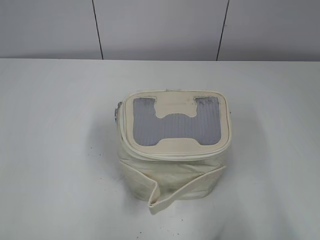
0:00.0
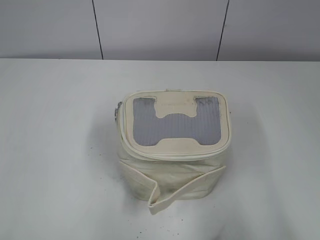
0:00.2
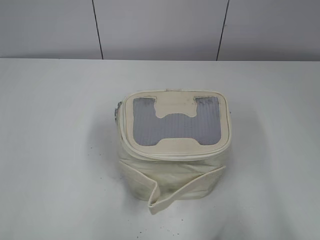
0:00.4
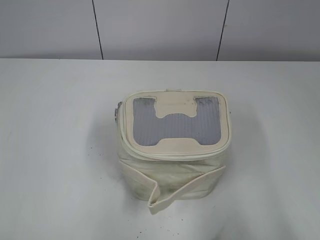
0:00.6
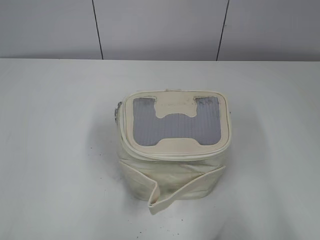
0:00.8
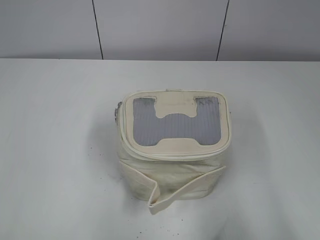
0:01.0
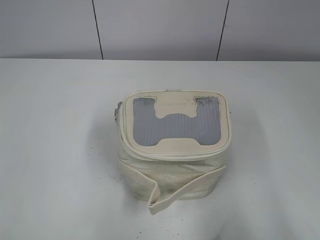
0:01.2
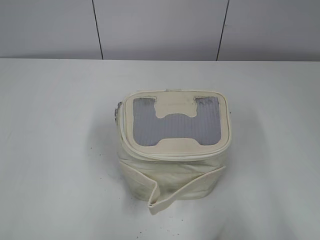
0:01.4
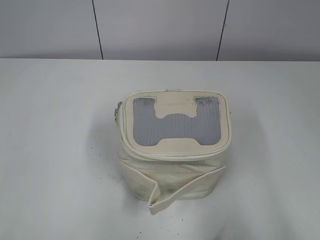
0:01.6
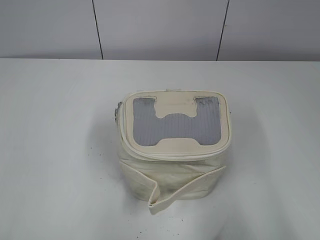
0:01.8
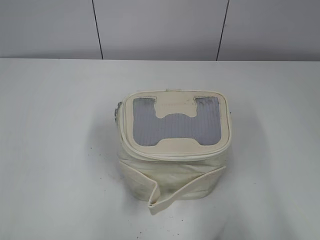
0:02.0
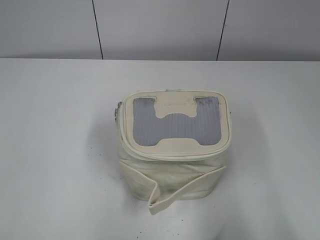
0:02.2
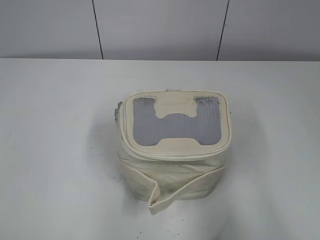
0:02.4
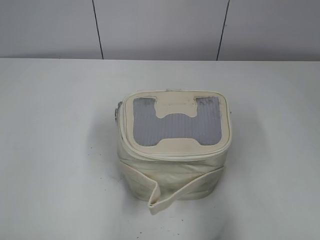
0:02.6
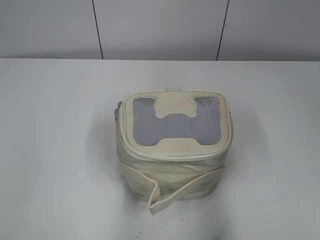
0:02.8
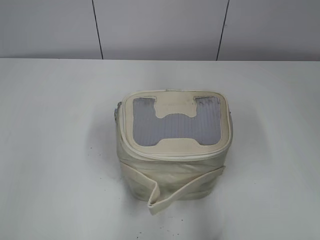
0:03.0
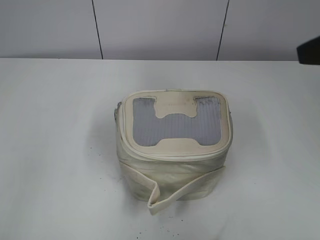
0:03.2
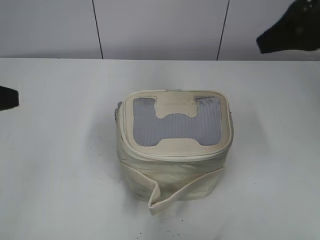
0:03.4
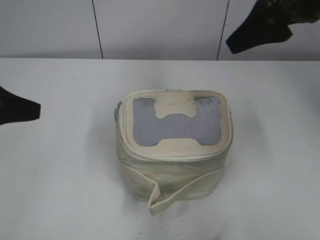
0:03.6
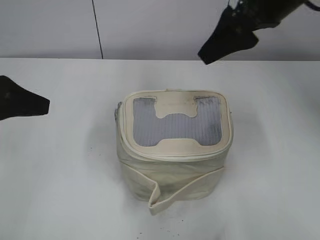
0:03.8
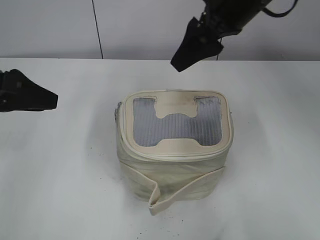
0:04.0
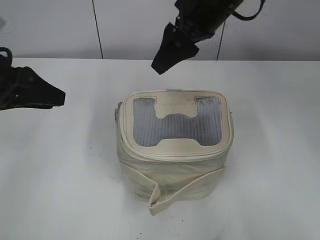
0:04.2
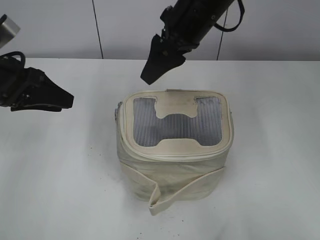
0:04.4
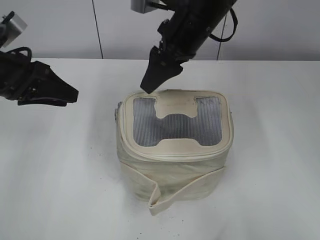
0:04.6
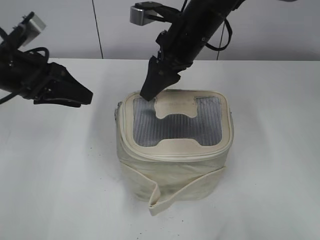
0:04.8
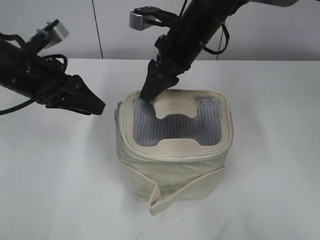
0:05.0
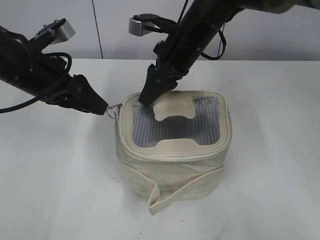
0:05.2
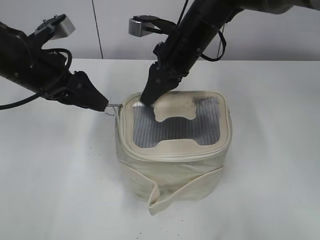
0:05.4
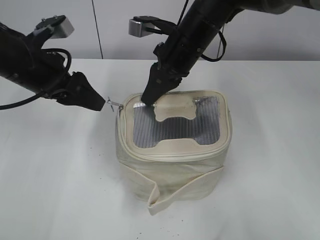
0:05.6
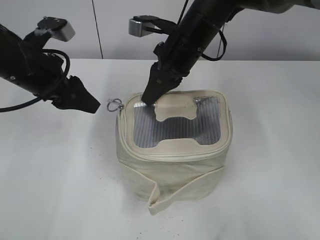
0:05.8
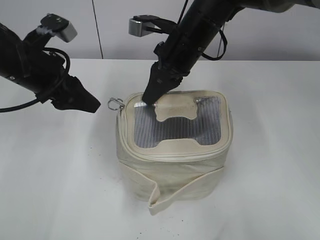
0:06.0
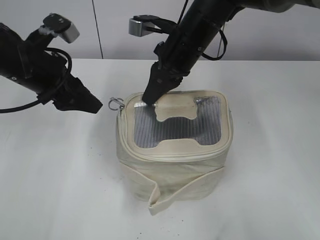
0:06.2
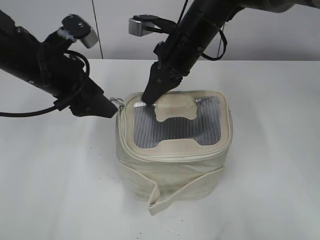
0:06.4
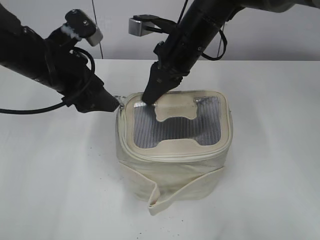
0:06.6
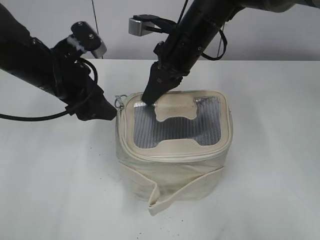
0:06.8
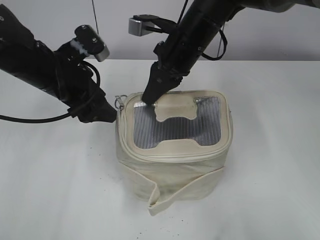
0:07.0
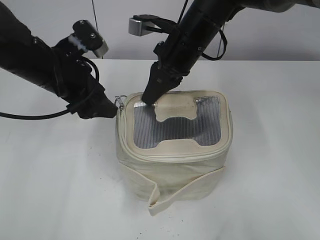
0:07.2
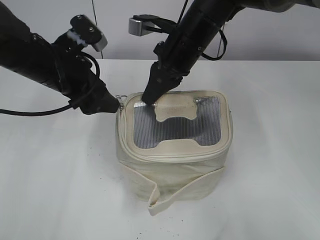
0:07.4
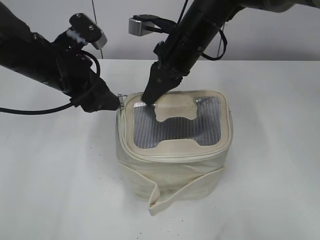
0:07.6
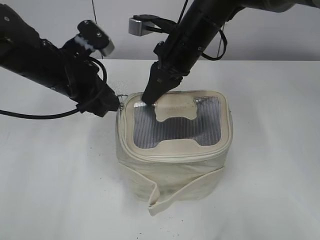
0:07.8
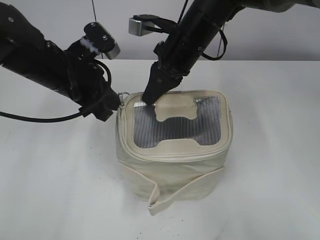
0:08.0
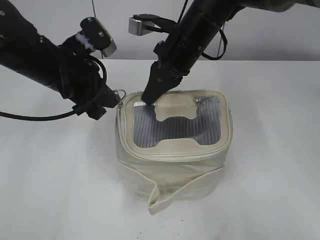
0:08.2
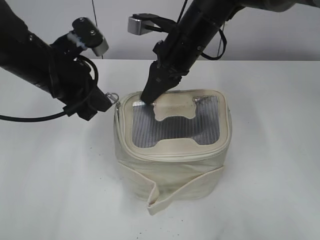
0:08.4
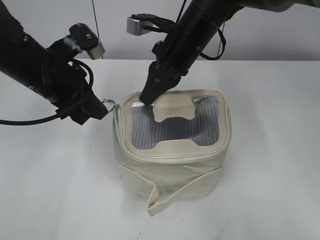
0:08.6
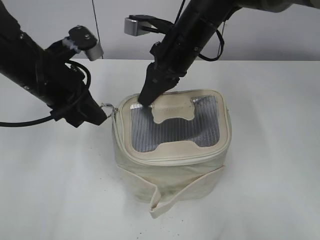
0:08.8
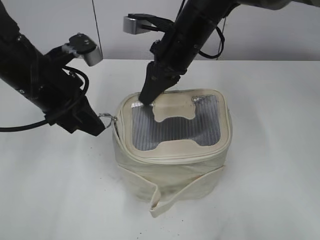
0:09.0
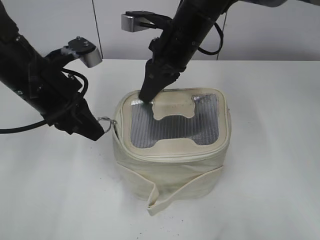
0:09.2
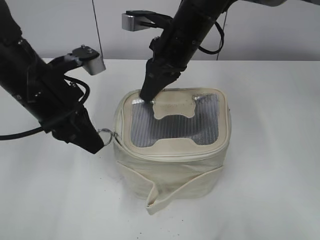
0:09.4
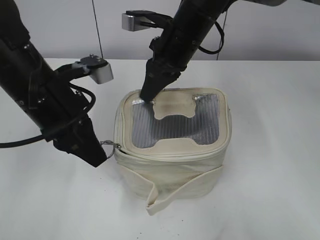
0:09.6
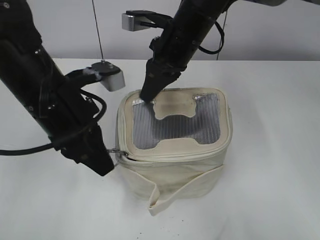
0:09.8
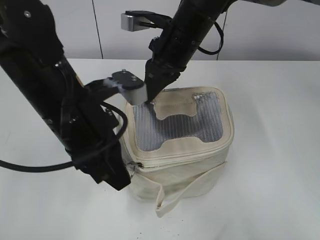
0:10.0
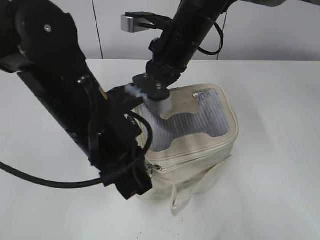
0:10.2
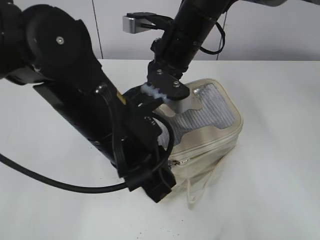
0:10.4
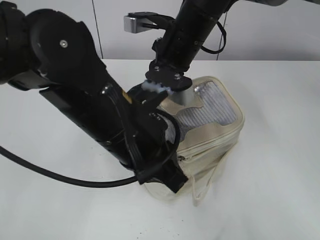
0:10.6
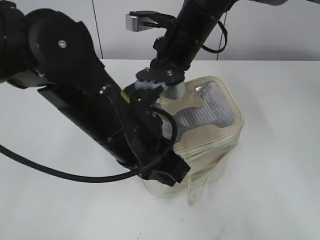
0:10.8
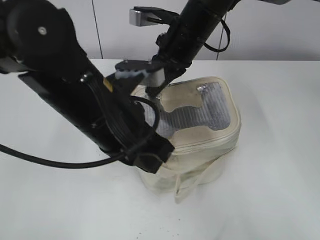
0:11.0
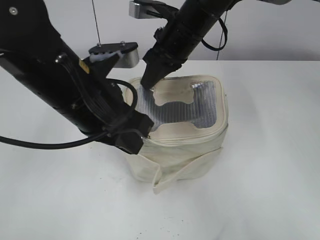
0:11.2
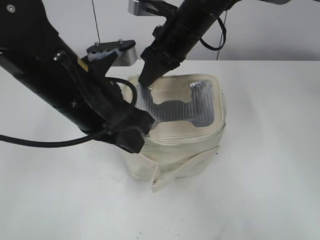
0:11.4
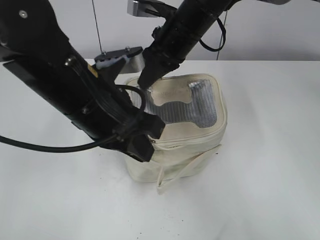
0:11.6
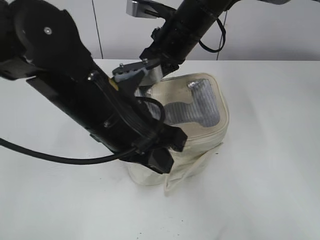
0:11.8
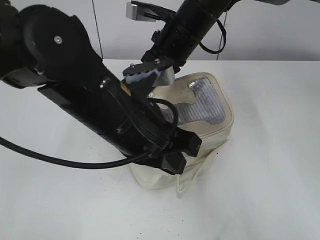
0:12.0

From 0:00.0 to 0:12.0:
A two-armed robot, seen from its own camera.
From 0:01.6 to 0:03.0: The two grippers go some 15 cm forward.
From 0:03.0 to 0:04.4: The right gripper is displaced forward and to the left by about 30 cm, while the left gripper shifts about 20 cm forward and downward.
From 0:04.4 to 0:06.0: The right gripper travels downward by about 5 cm, and closes its fingers; the left gripper shifts by some 5 cm.
From 0:06.0 to 0:07.6: The grippers move only a little.
From 0:07.6 to 0:09.0: The left gripper closes.
From 0:09.0 to 0:10.4: The left gripper travels to the right and backward by about 15 cm.

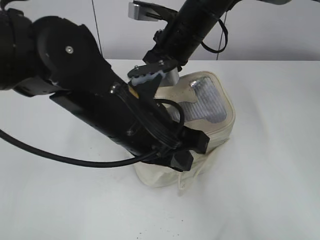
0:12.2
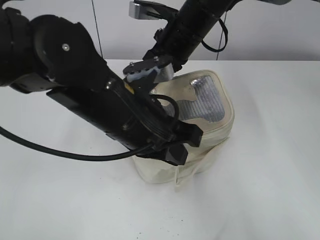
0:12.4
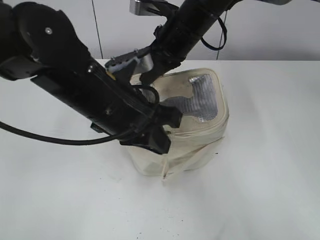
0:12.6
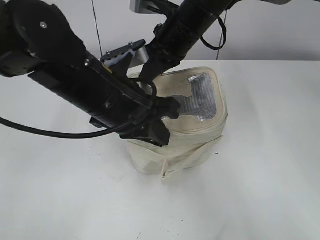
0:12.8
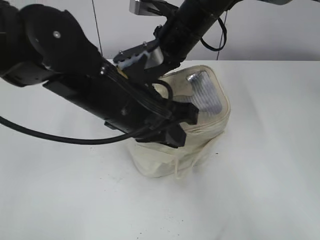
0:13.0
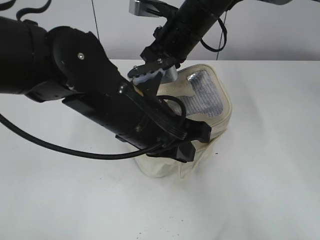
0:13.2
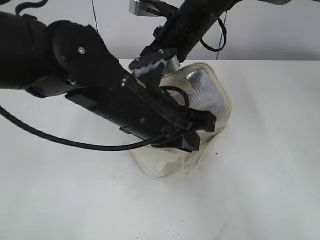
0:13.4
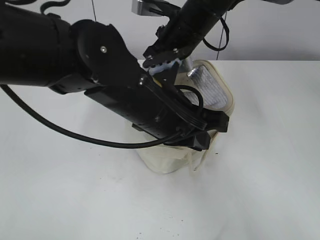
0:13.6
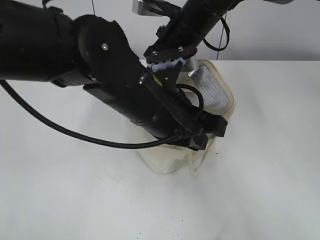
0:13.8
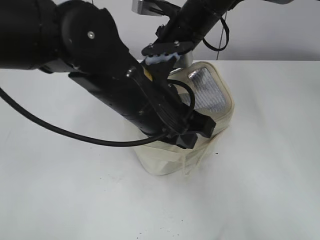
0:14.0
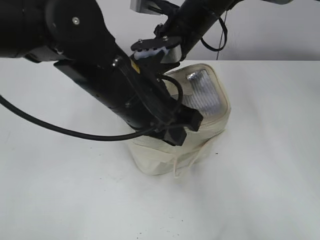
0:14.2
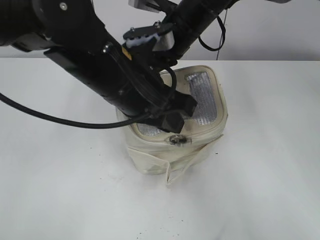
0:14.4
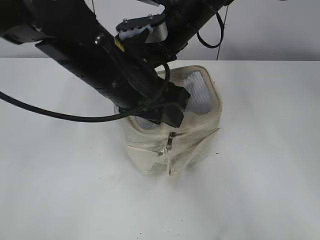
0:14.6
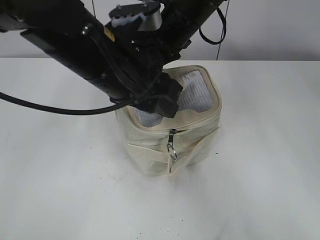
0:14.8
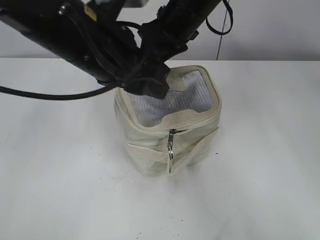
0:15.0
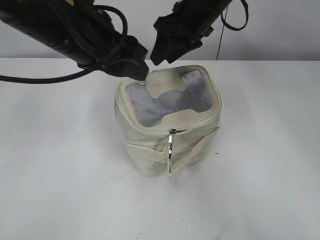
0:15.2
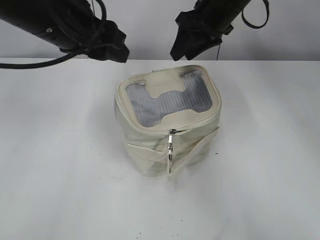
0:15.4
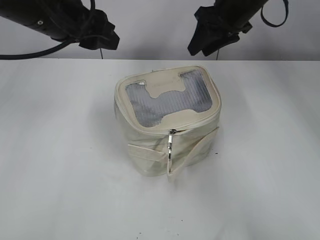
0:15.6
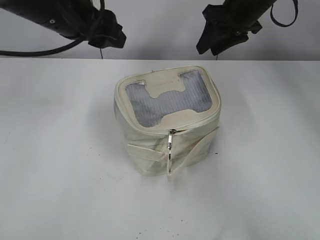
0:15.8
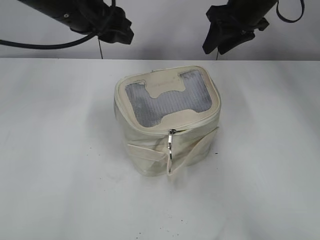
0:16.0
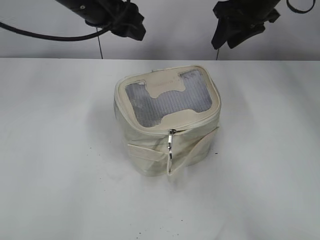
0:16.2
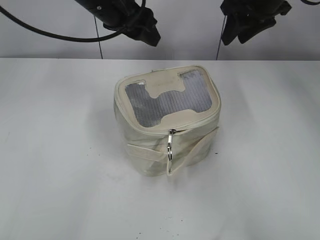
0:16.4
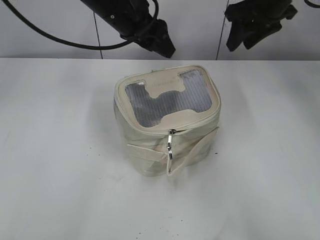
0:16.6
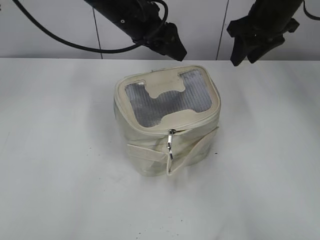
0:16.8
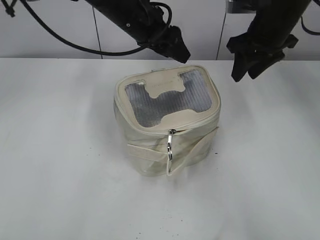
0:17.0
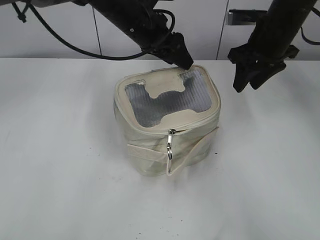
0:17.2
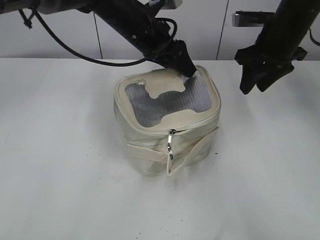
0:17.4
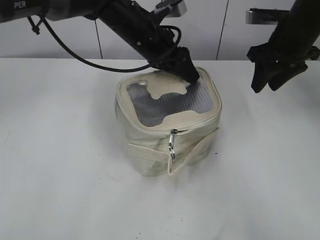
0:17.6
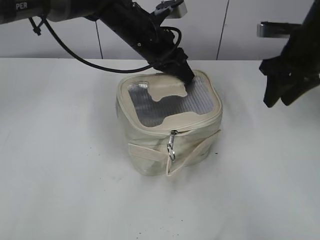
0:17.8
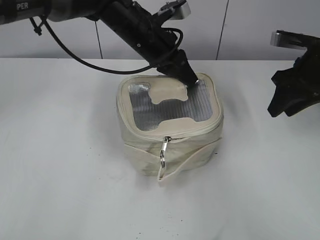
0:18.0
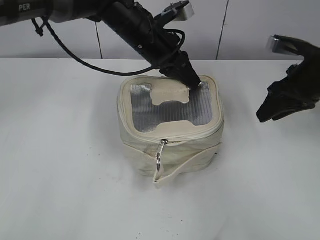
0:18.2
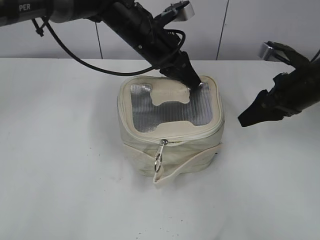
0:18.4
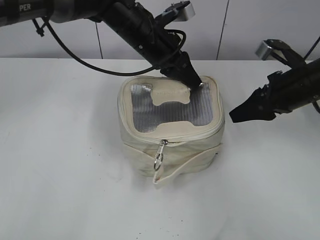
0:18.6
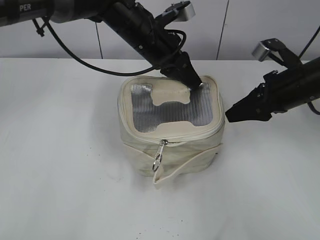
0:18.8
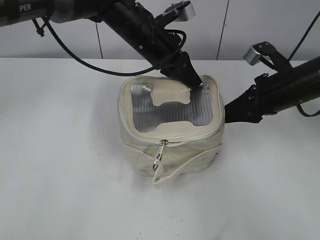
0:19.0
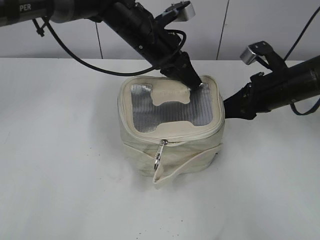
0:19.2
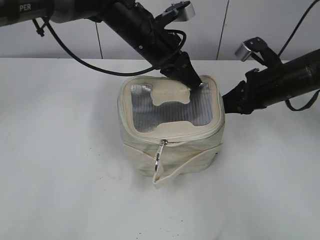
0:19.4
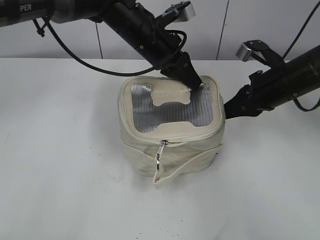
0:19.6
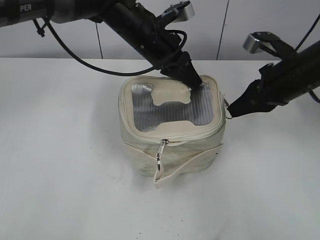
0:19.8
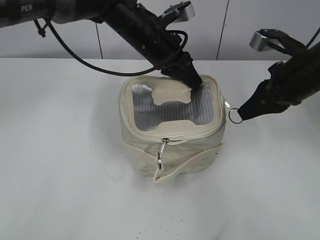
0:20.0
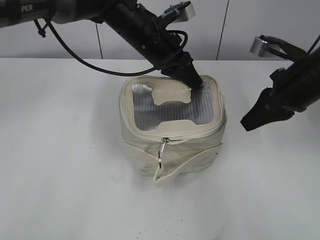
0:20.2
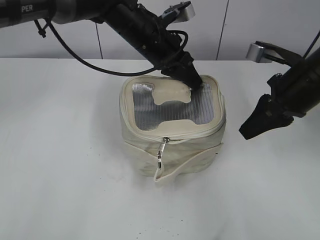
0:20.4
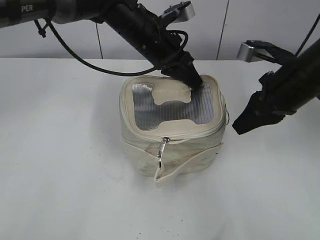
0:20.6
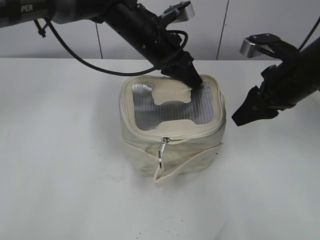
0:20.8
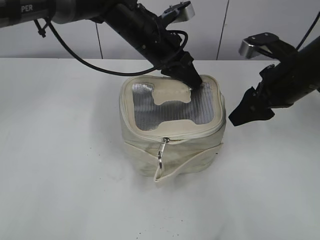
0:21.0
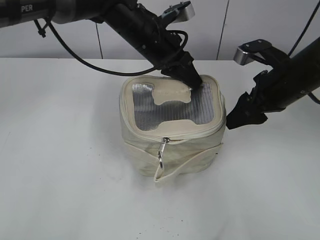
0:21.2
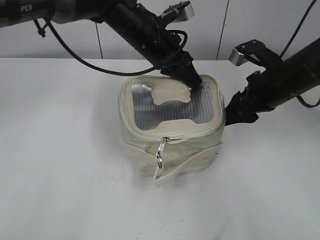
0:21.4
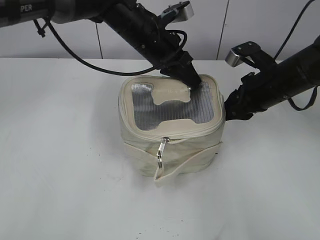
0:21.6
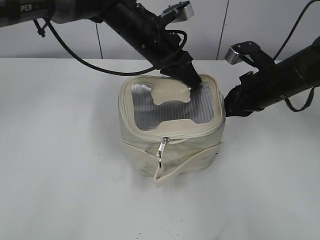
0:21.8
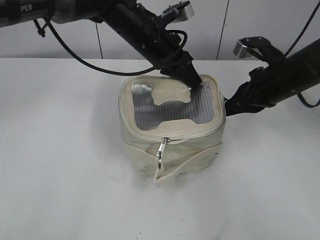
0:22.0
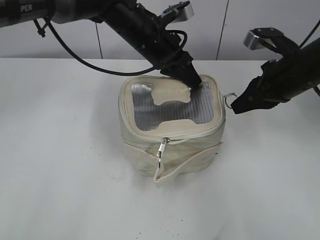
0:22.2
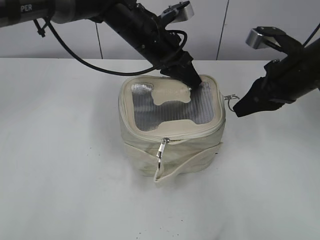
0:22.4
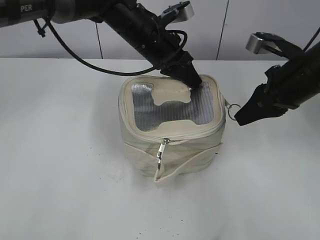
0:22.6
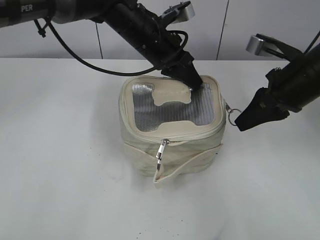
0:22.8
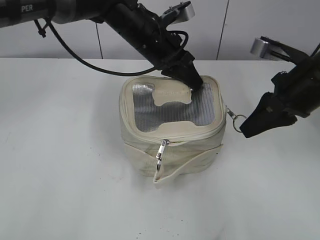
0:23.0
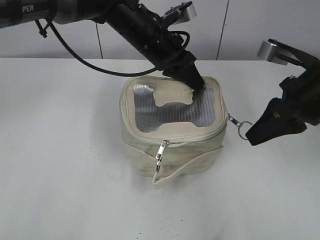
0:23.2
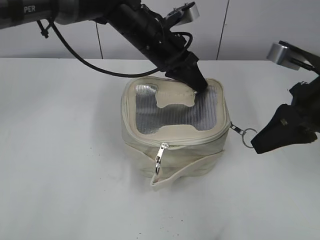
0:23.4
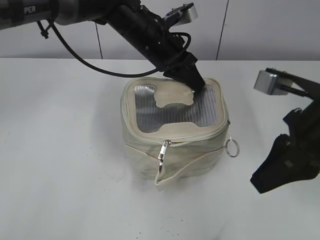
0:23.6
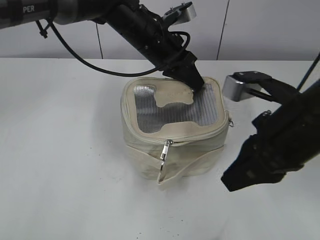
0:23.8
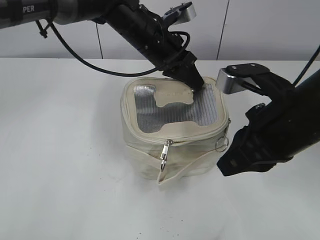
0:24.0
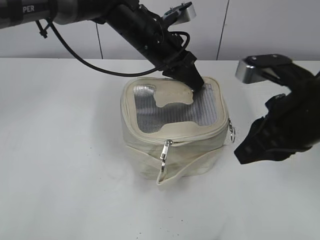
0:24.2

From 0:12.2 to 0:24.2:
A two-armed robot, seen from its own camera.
Step, from 0:12.2 to 0:14.4: Zip up the bag with your left hand.
Step, from 0:14.6 to 0:15.2: Hold the bag with your right hand.
From 0:13.8 to 0:15.2: The left gripper shifts approximately 10 cm to the left and upward, and opens; the right gripper opens up.
From 0:15.2 to 0:16.6: The right gripper moves to the right, about 10 cm. The left gripper is displaced forward by roughly 15 cm.
From 0:16.6 to 0:18.2: The right gripper goes approximately 15 cm backward, downward and to the right. Meanwhile the left gripper moves downward, about 5 cm, and closes up.
From 0:18.2 to 0:19.8: The right gripper closes up.
From 0:19.8 to 0:21.2: The right gripper opens its fingers.
From 0:21.2 to 0:22.6: The right gripper closes up.
From 0:22.6 to 0:24.2: The right gripper goes approximately 10 cm backward.
